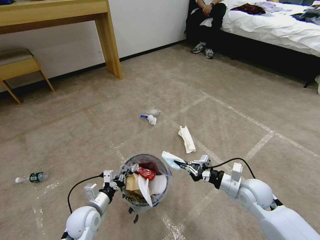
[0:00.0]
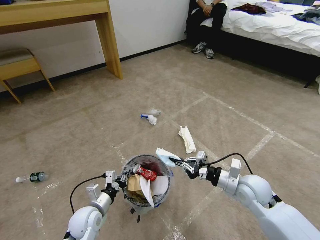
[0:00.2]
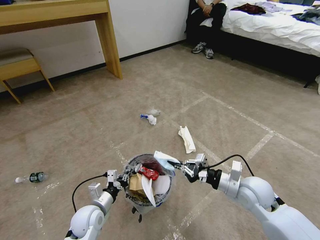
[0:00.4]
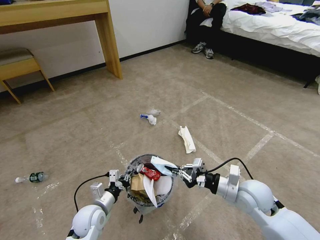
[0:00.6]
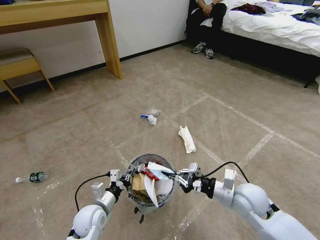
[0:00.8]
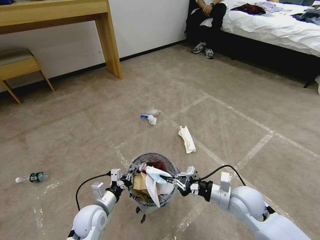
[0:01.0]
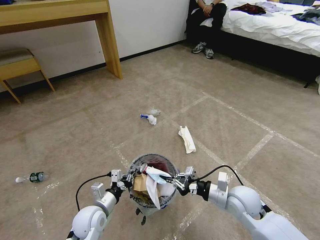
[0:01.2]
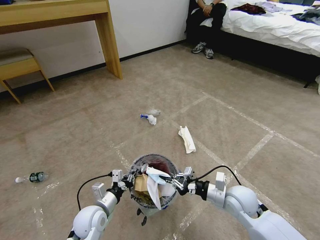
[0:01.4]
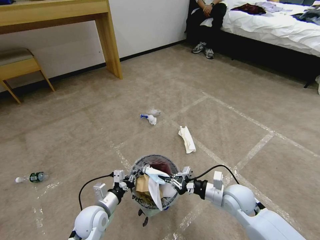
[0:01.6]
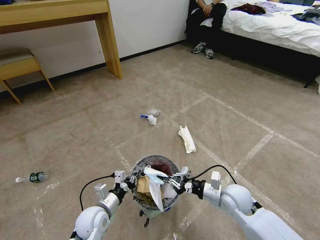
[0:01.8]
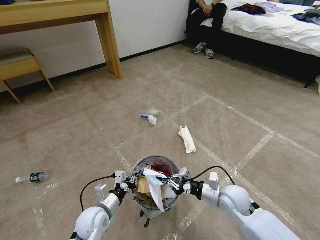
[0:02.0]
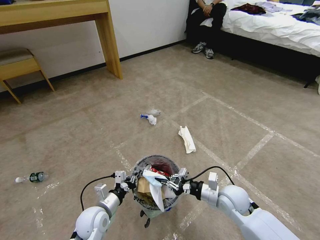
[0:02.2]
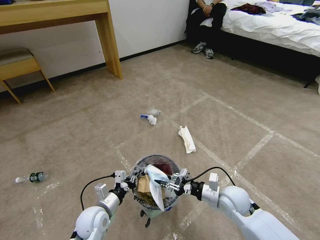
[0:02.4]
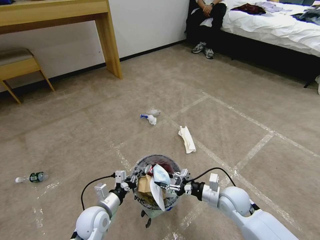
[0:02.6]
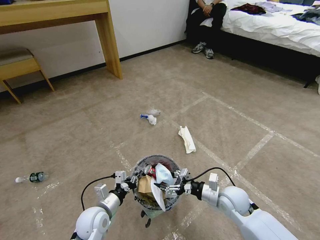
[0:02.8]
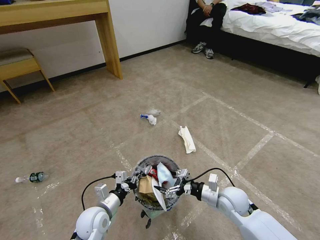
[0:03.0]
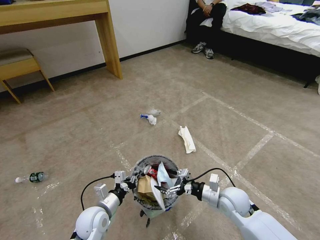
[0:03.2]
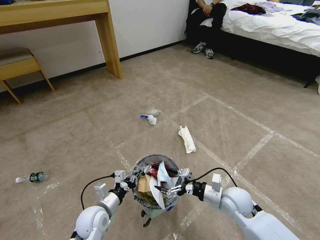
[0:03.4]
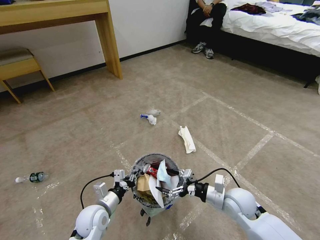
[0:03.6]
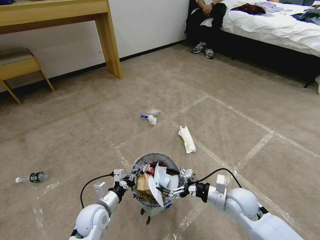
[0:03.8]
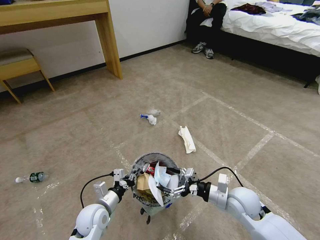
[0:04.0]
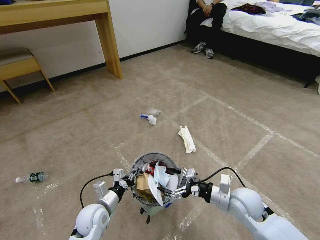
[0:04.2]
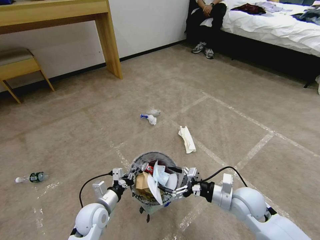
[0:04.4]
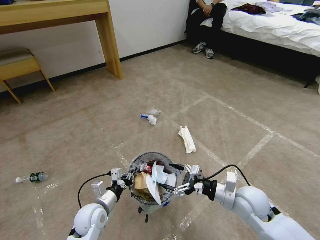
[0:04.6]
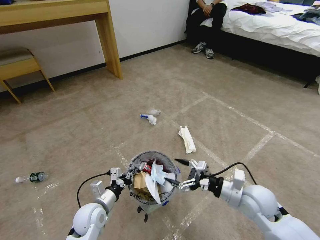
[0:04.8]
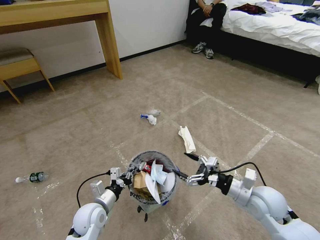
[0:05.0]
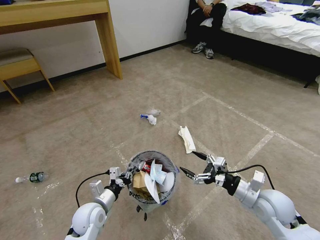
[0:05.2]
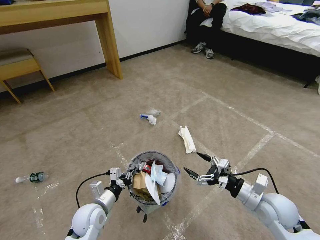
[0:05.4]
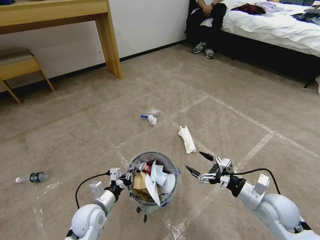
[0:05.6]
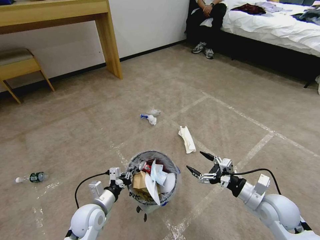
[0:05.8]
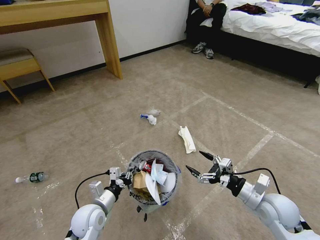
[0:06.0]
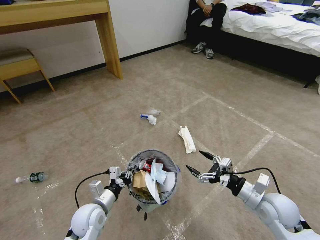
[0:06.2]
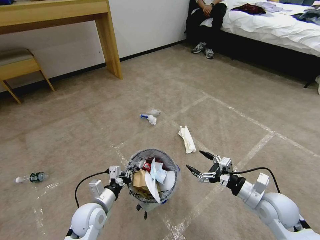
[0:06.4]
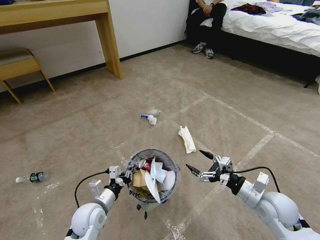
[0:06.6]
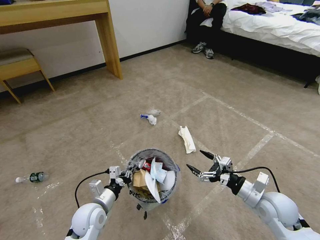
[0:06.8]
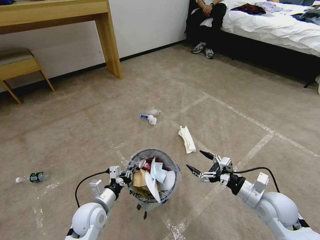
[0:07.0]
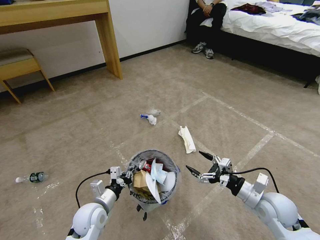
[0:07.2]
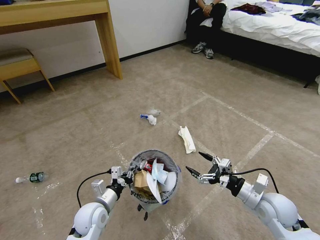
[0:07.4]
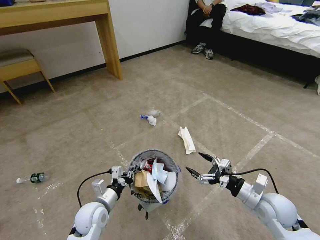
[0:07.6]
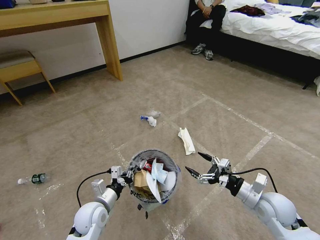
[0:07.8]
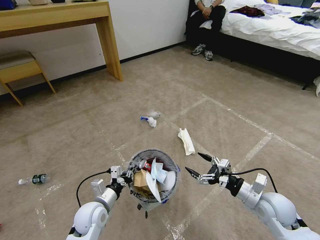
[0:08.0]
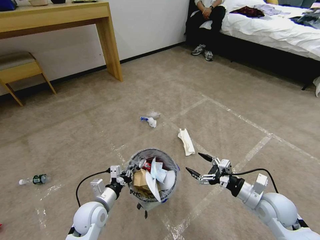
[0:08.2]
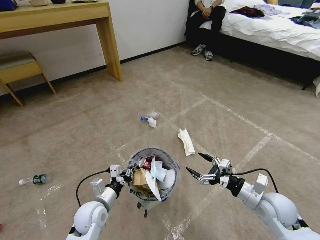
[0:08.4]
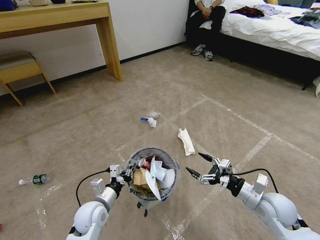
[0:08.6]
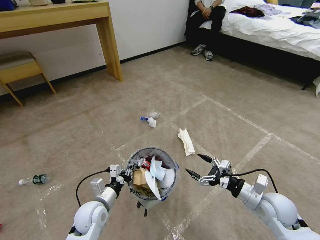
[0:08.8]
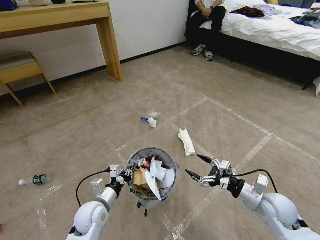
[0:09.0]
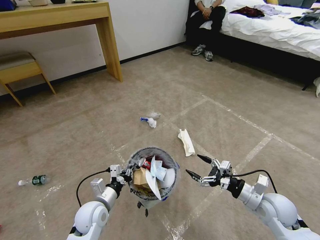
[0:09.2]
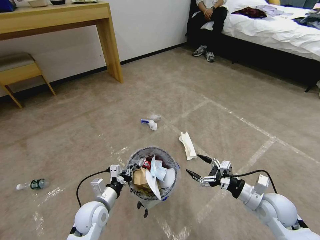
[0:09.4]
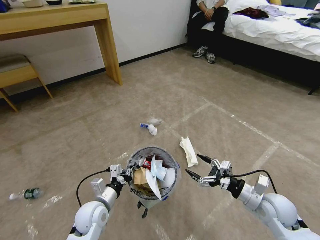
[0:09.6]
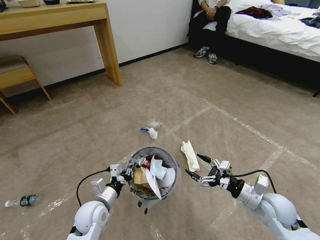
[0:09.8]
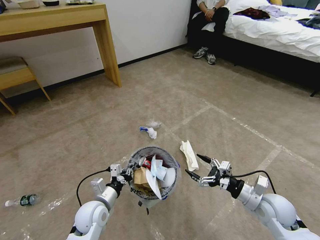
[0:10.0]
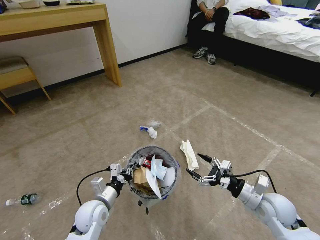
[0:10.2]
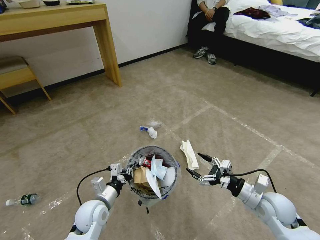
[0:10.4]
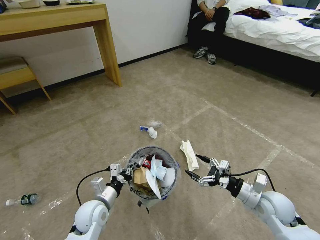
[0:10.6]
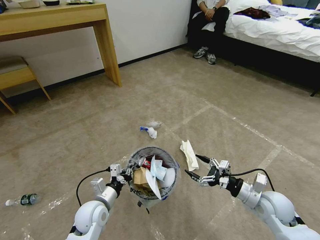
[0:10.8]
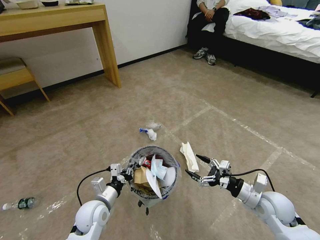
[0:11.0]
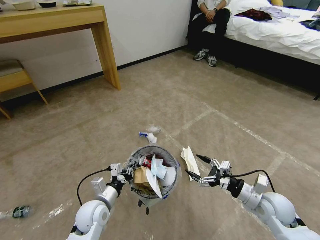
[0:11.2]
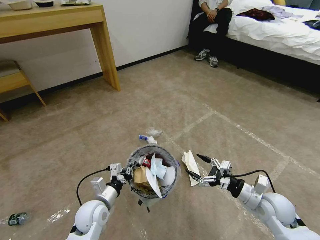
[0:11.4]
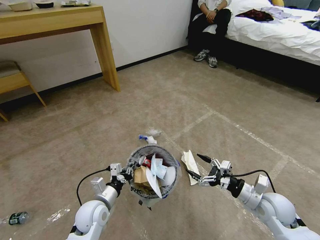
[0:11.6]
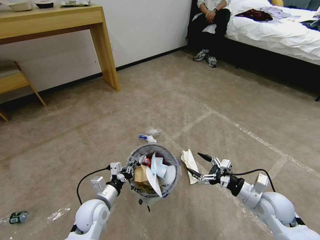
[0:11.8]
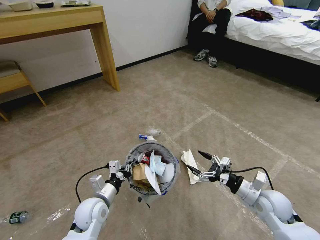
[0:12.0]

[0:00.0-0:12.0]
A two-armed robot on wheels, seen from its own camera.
Task of the whole recording: Pick up the trash bin and place the garbage on the floor into it.
0:00.0 to 0:01.6: The right gripper is displaced to the left by roughly 5 cm.
0:01.6 to 0:03.0: The right gripper opens its fingers.
0:03.0 to 0:04.4: The right gripper moves approximately 5 cm.
0:04.4 to 0:06.0: The right gripper moves to the right, about 5 cm.
0:06.0 to 0:07.6: The two grippers keep their place.
0:07.6 to 0:10.4: Both grippers stay about where they are.
0:10.4 to 0:12.0: There are only small adjustments of the grippers.

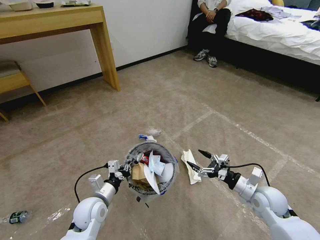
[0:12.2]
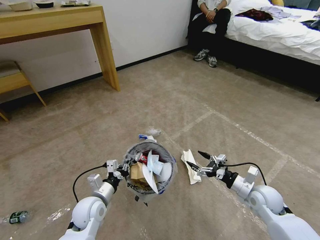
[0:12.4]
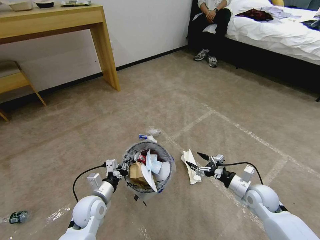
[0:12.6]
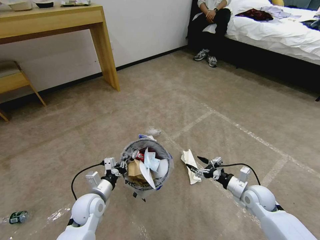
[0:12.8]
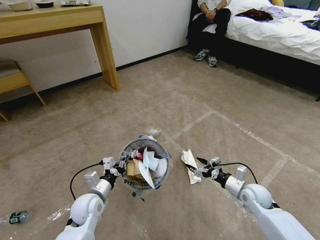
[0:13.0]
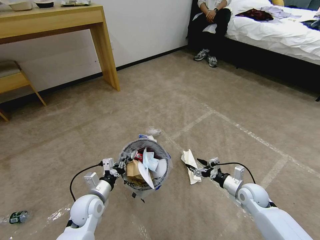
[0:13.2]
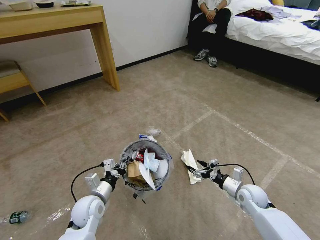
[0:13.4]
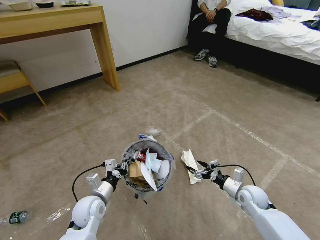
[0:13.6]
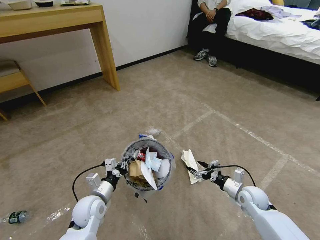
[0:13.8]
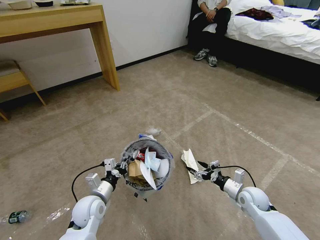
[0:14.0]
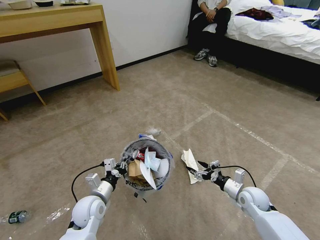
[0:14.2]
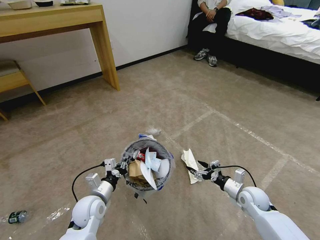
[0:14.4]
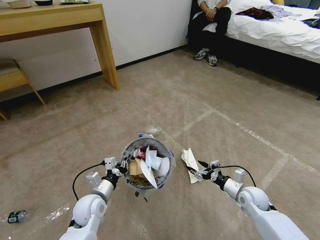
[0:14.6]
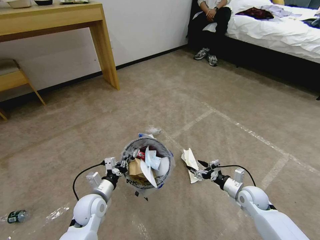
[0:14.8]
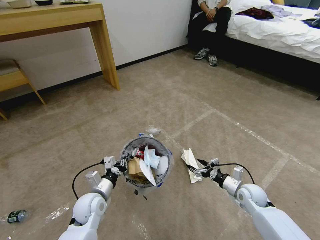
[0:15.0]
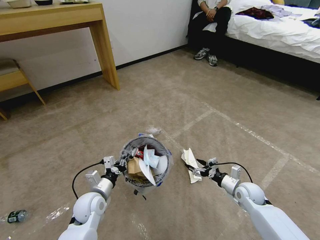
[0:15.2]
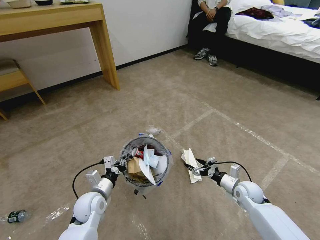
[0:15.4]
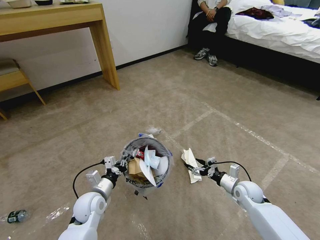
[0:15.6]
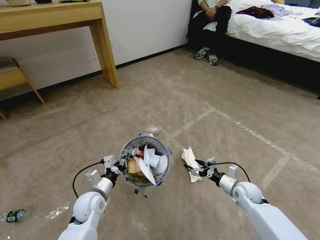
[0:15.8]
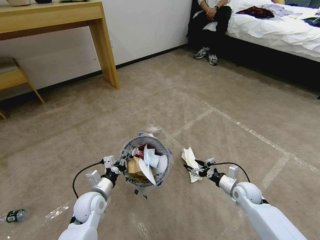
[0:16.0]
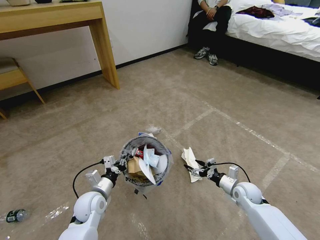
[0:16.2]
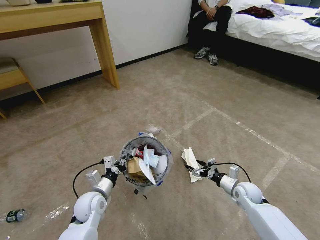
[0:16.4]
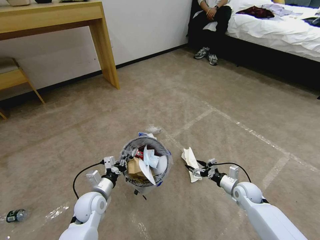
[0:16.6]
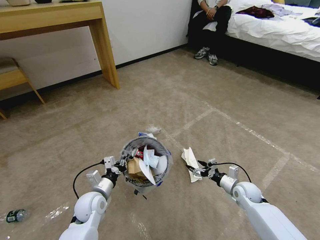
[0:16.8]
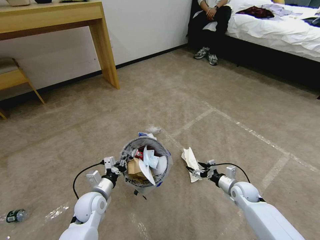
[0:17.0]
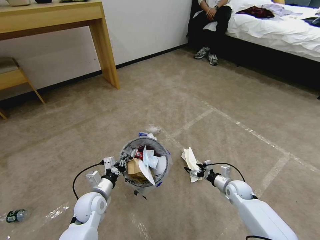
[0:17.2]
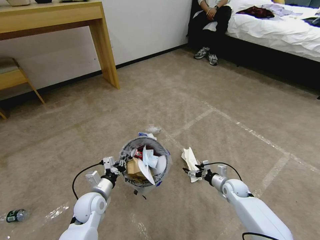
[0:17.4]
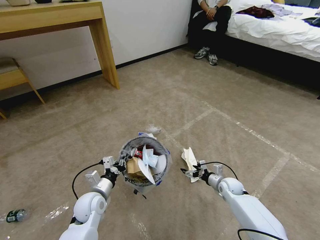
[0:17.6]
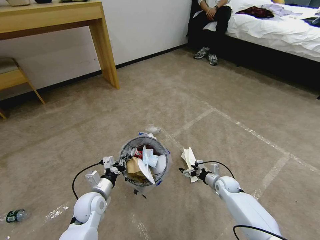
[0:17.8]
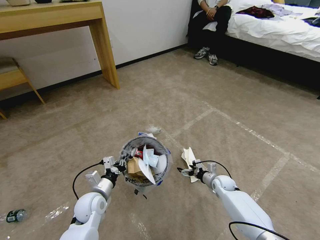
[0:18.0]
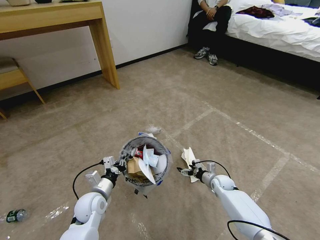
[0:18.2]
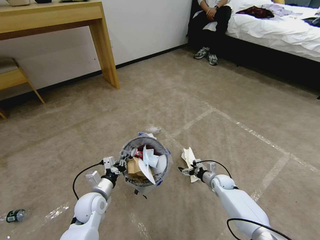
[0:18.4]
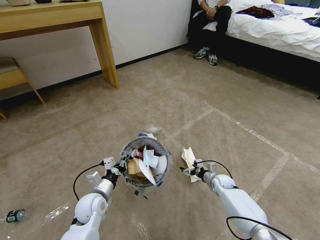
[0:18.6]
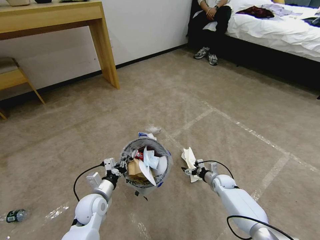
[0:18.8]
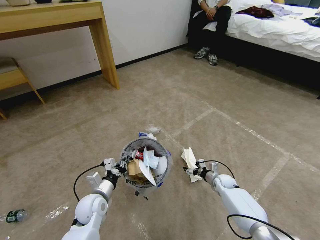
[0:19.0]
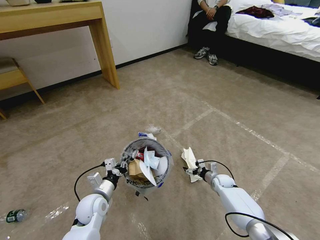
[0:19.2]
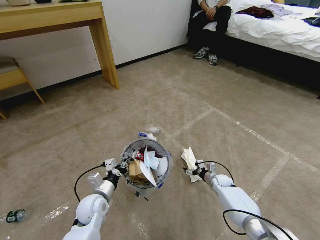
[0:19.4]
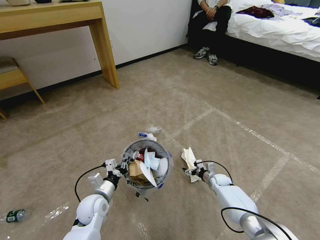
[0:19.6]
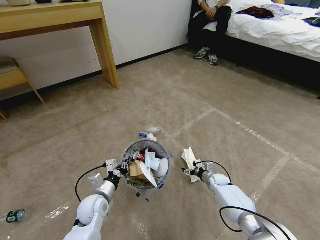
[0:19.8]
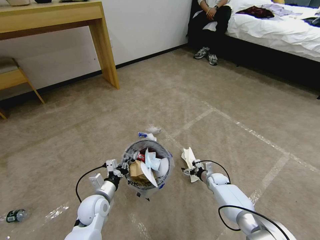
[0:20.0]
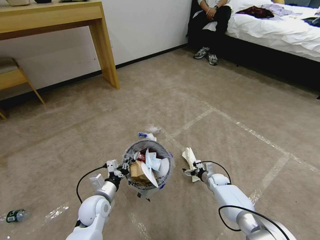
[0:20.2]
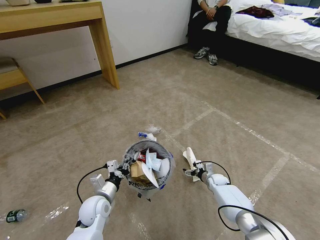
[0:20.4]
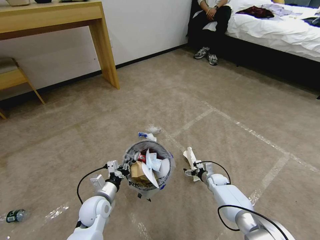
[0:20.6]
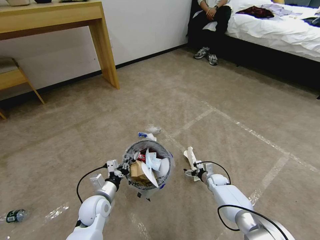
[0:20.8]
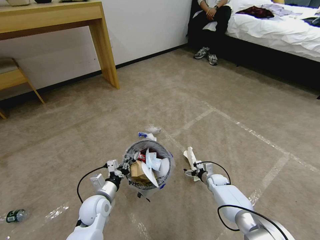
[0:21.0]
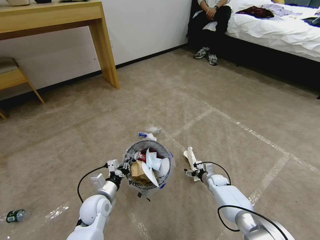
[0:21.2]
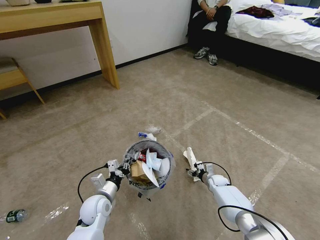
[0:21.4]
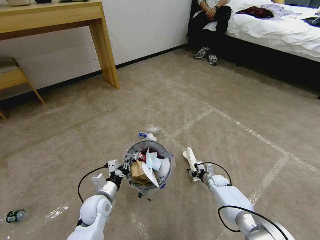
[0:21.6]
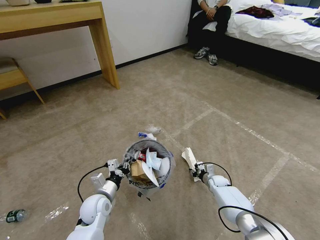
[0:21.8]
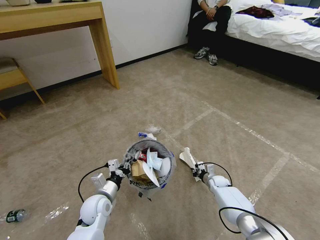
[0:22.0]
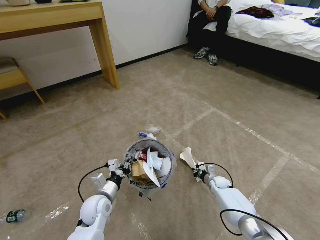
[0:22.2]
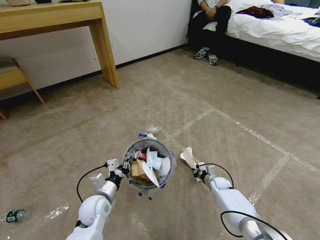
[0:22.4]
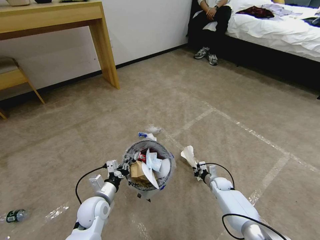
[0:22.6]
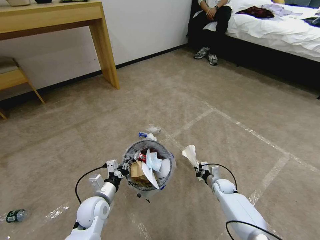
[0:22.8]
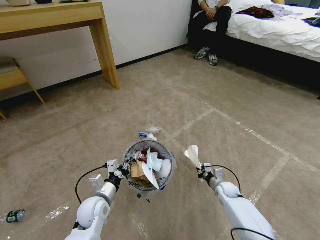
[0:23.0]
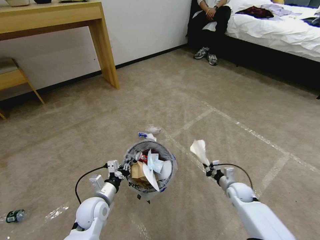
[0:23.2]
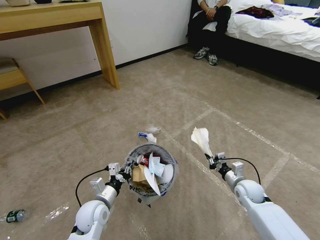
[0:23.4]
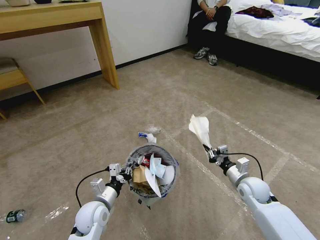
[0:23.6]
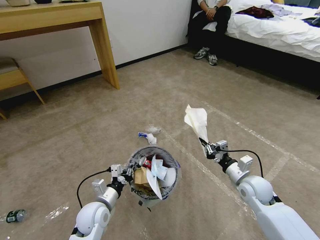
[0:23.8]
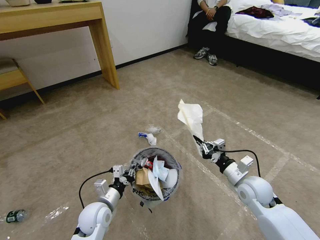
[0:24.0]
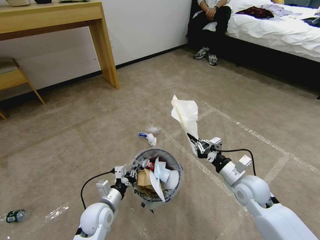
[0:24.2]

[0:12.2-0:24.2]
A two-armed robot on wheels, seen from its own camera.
Task of the whole recording: Pick up the trash bin and place the garbage on the floor into it.
0:12.2 to 0:13.8: The right gripper is displaced downward by approximately 10 cm.
0:13.8 to 0:16.6: The grippers make only small movements.
0:16.6 to 0:18.2: The right gripper heads forward, downward and to the left, covering approximately 10 cm.
0:18.2 to 0:21.2: The grippers move only a little.
0:21.2 to 0:22.6: The right gripper closes its fingers.
0:22.6 to 0:24.2: The right gripper travels upward and backward by about 25 cm.
